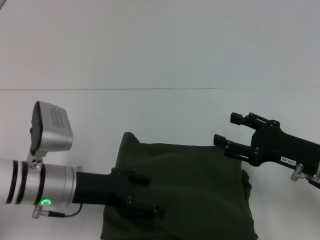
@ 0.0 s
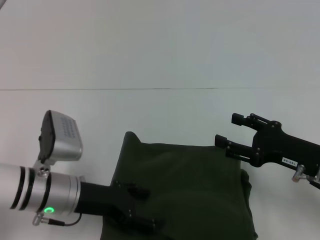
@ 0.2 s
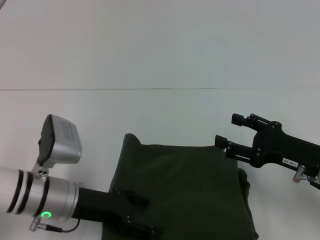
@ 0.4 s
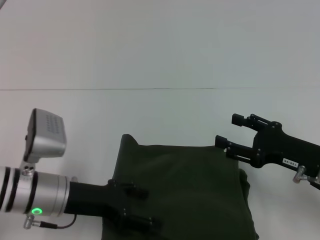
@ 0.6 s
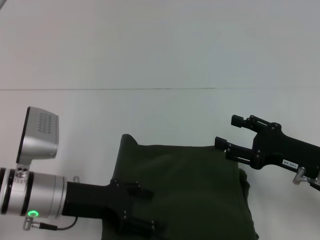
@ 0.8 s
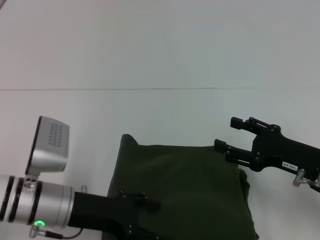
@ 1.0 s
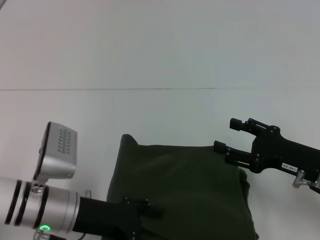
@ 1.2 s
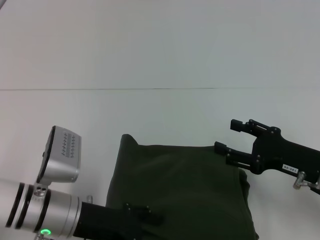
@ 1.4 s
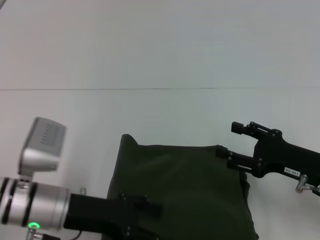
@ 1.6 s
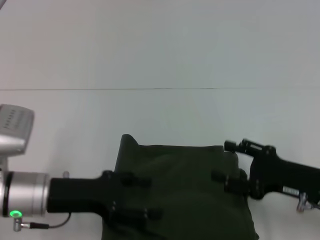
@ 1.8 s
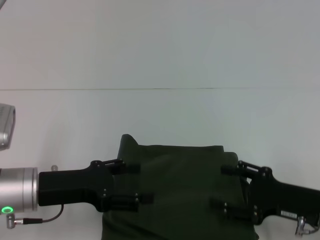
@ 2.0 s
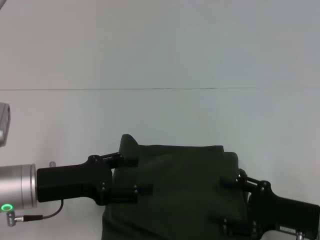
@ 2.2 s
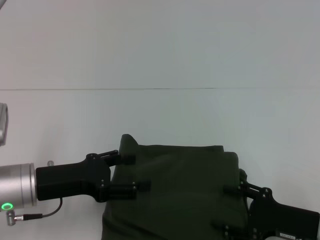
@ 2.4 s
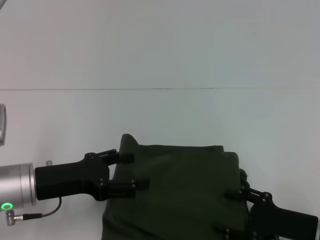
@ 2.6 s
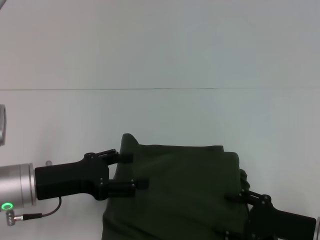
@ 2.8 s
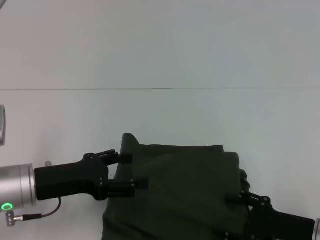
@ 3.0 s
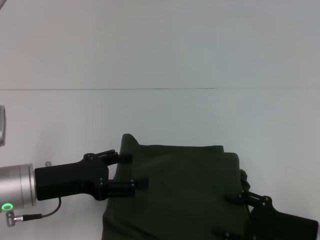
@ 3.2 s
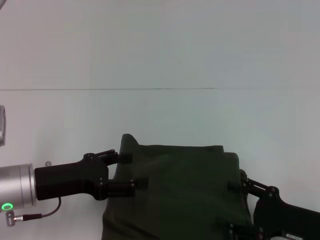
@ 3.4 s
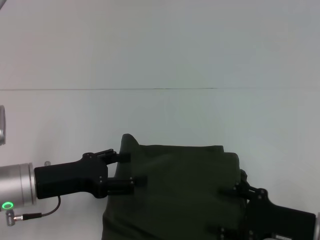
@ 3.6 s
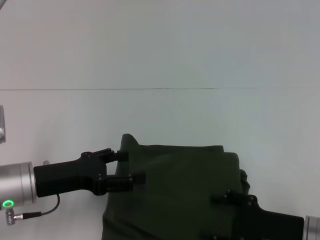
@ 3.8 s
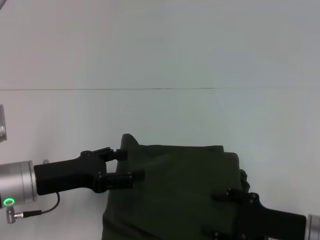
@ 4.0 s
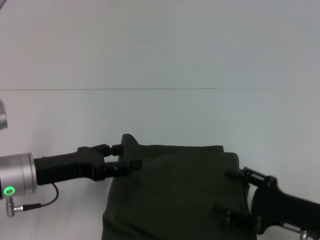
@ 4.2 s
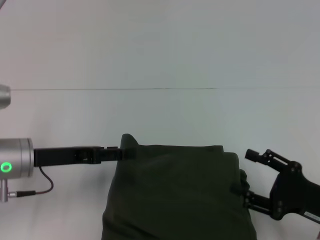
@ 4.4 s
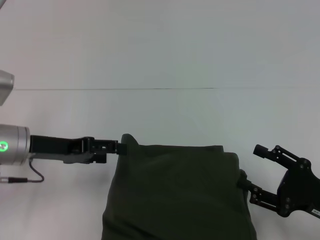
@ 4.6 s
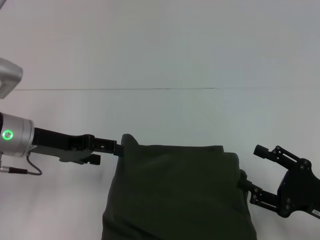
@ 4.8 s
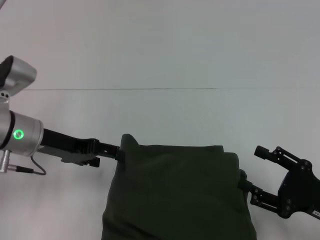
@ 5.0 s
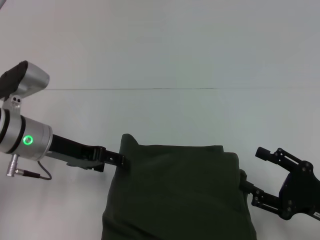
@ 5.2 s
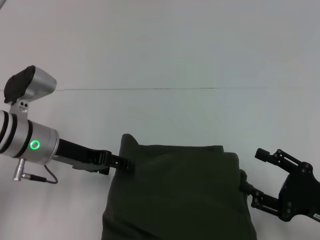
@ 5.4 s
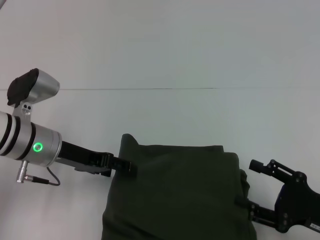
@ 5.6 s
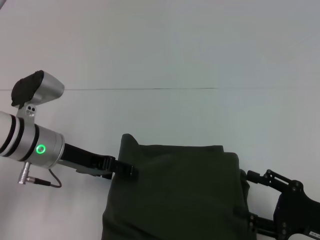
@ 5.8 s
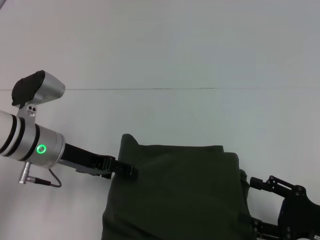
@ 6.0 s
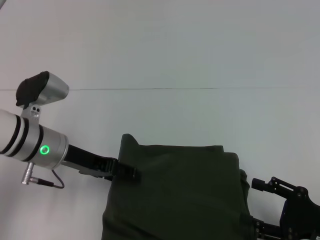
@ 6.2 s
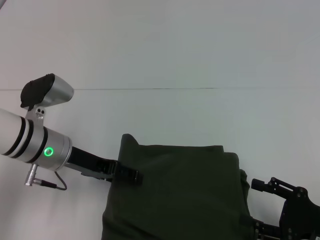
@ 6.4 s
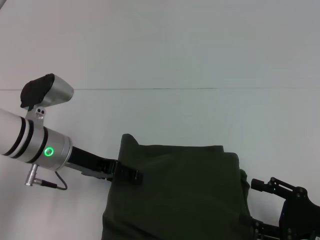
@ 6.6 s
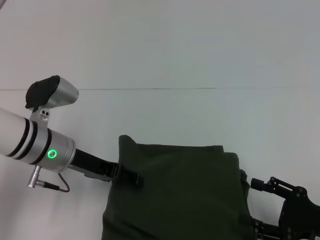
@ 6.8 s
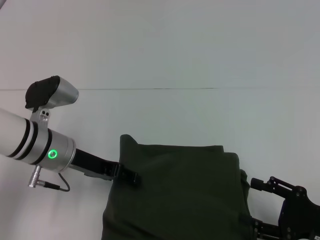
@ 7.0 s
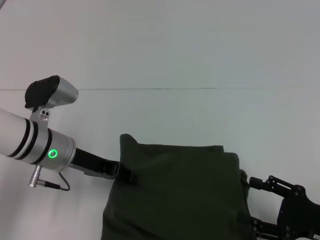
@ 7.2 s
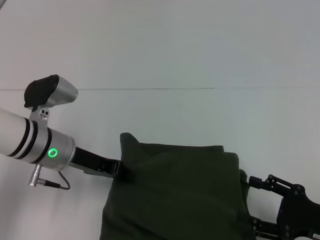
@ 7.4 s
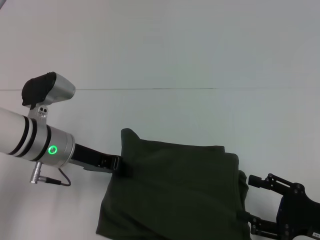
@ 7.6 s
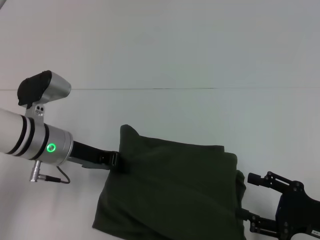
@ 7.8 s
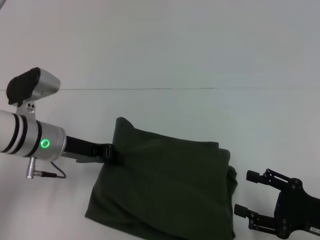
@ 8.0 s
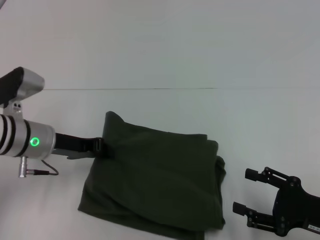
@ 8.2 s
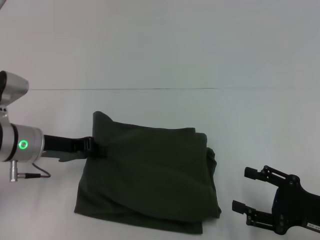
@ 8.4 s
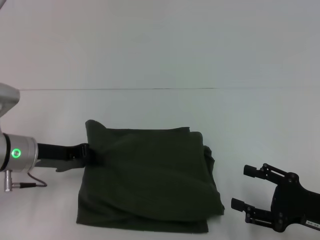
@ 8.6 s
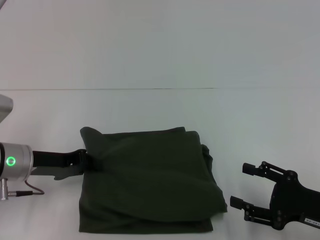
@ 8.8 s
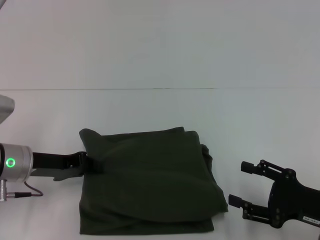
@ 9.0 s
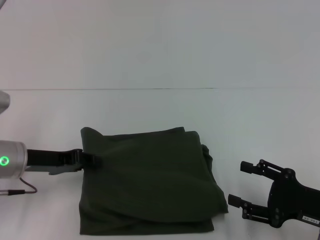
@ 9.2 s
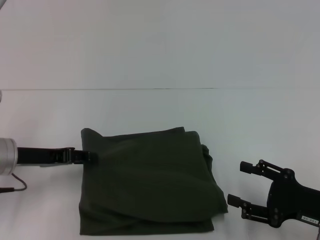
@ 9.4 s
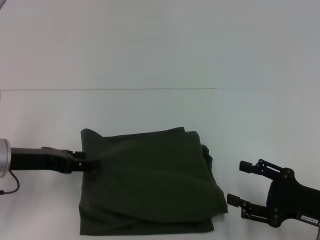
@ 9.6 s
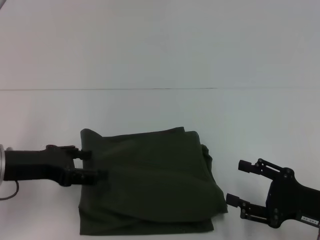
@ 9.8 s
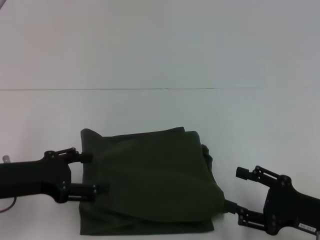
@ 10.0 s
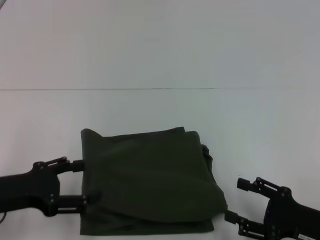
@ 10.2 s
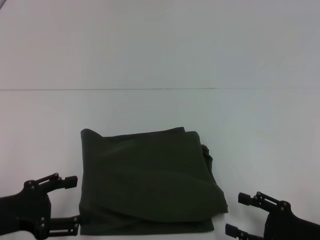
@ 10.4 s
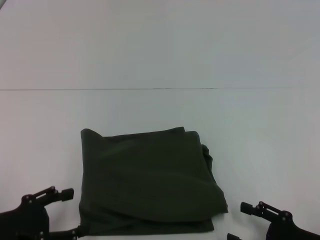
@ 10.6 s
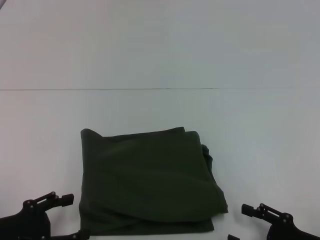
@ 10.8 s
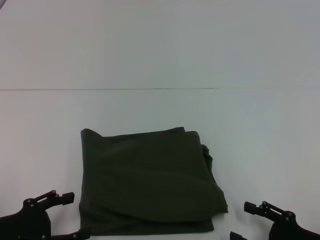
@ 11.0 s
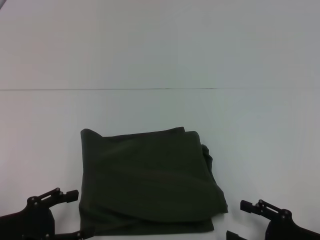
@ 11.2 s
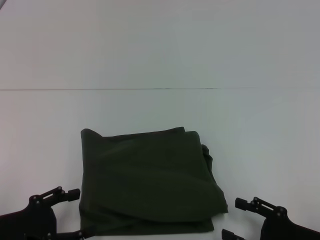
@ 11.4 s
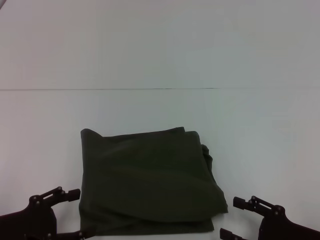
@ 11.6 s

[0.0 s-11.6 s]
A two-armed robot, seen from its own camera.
0.0 to 1.4 s: The grippers stay close to where they were, moving slightly.
1.4 to 2.8 s: The right gripper heads downward and backward, covering approximately 10 cm; the left gripper is displaced to the left by some 5 cm.
4.4 to 5.8 s: The left gripper moves about 5 cm.
5.8 to 7.2 s: The grippers stay close to where they were, moving slightly.
7.2 to 8.8 s: The left gripper travels to the left by some 5 cm, and closes.
8.8 to 10.2 s: The left gripper shifts approximately 10 cm backward, and opens.
10.2 to 11.6 s: The left gripper moves approximately 5 cm.

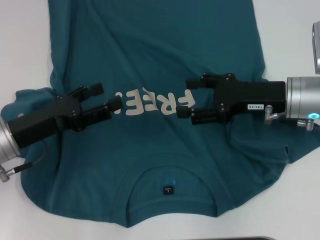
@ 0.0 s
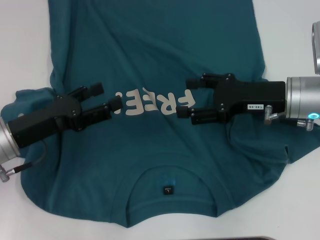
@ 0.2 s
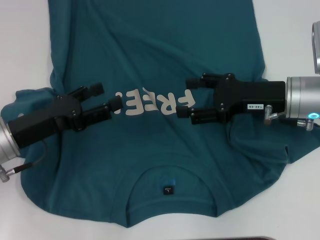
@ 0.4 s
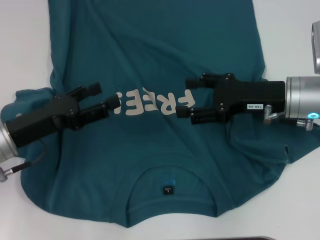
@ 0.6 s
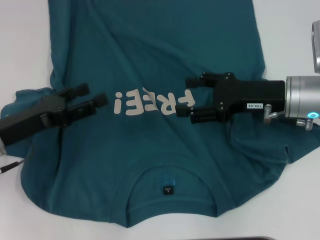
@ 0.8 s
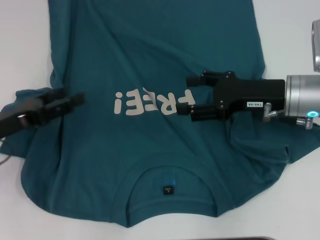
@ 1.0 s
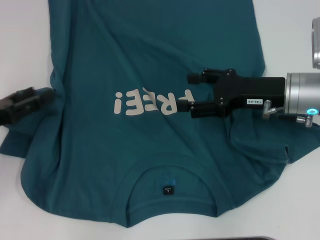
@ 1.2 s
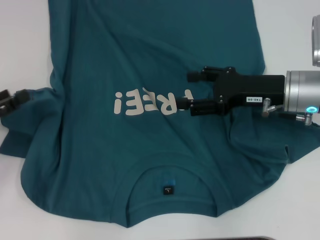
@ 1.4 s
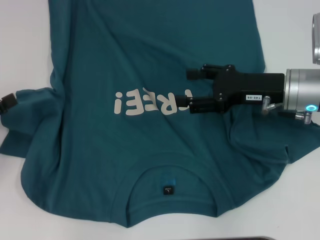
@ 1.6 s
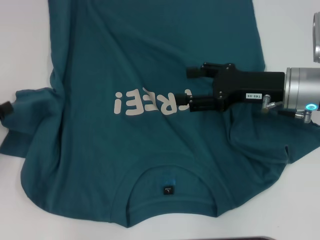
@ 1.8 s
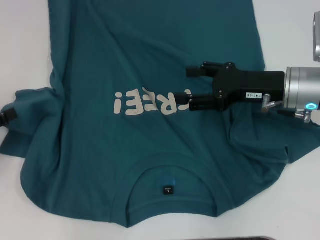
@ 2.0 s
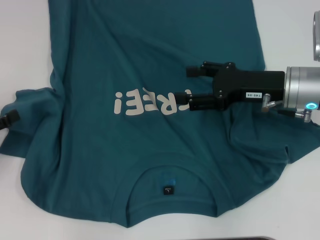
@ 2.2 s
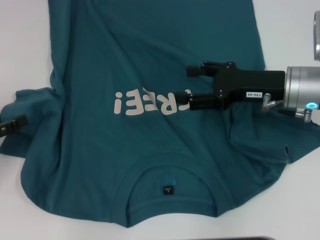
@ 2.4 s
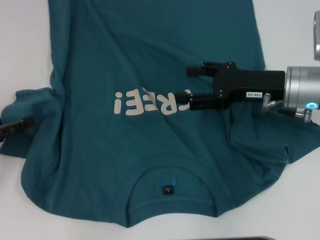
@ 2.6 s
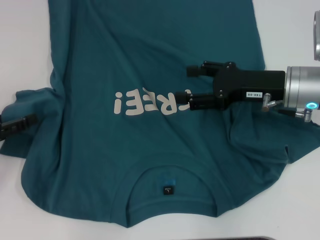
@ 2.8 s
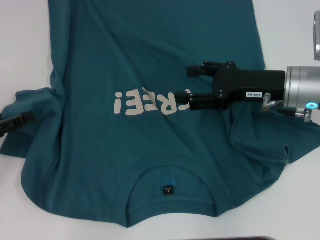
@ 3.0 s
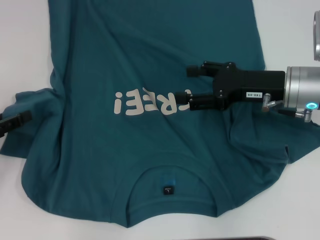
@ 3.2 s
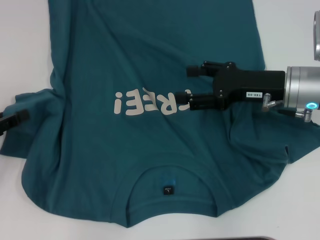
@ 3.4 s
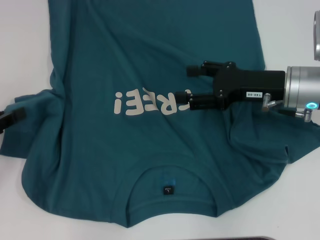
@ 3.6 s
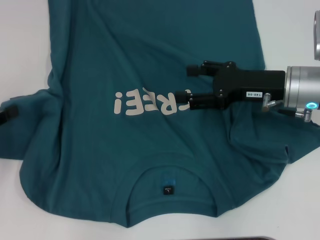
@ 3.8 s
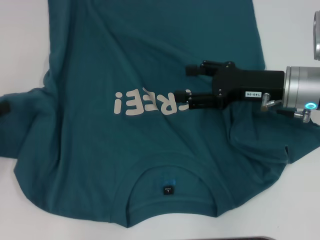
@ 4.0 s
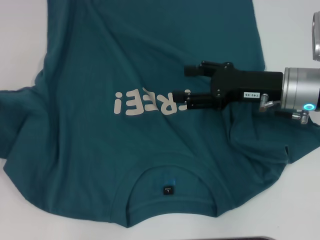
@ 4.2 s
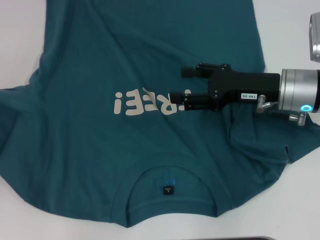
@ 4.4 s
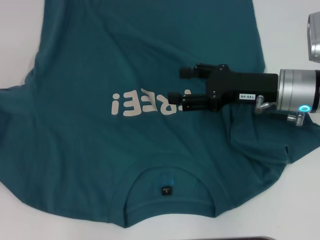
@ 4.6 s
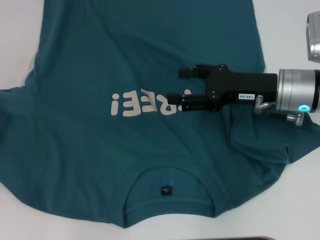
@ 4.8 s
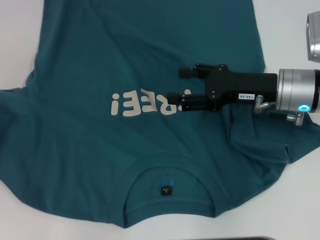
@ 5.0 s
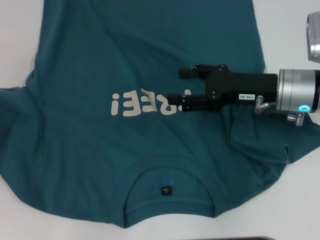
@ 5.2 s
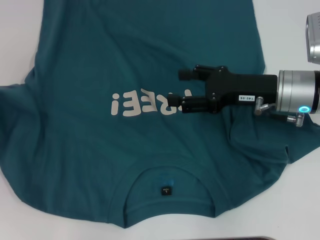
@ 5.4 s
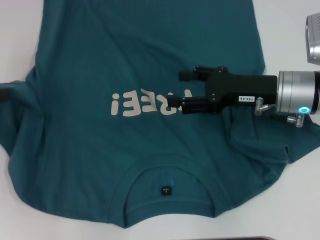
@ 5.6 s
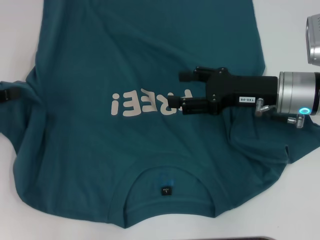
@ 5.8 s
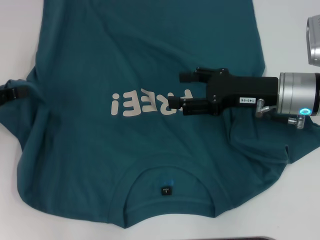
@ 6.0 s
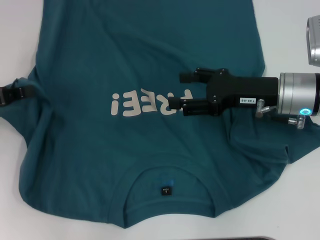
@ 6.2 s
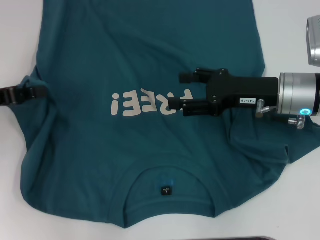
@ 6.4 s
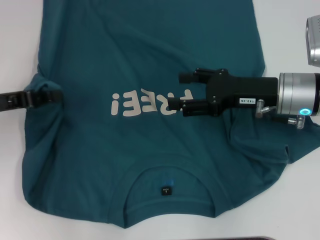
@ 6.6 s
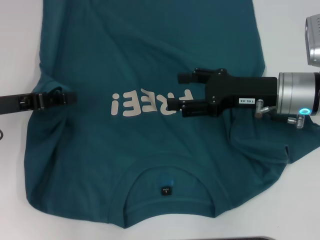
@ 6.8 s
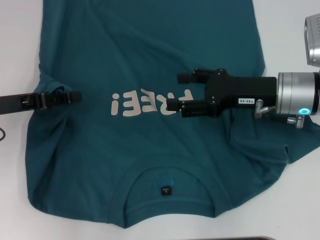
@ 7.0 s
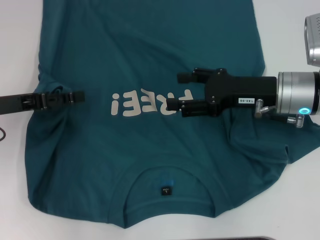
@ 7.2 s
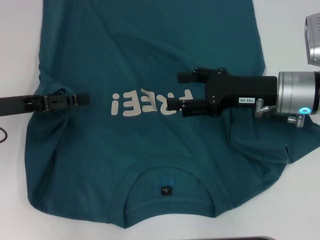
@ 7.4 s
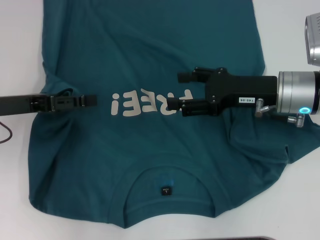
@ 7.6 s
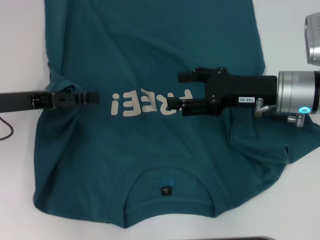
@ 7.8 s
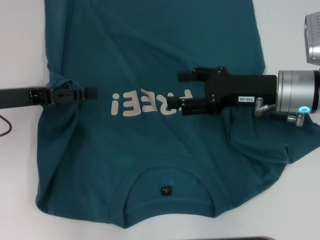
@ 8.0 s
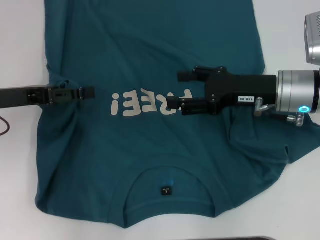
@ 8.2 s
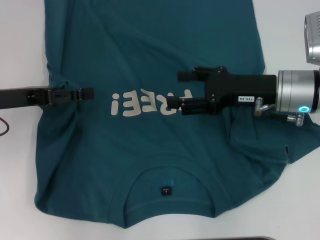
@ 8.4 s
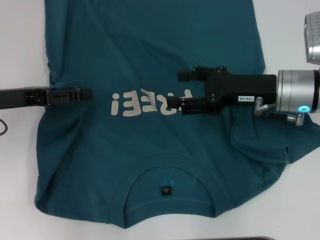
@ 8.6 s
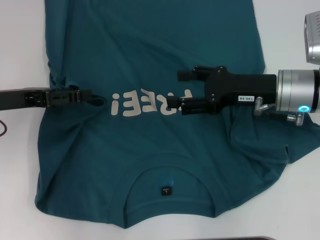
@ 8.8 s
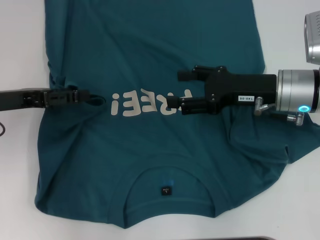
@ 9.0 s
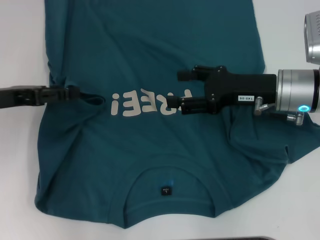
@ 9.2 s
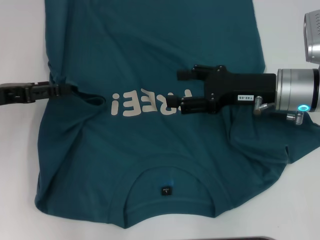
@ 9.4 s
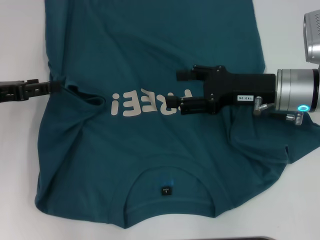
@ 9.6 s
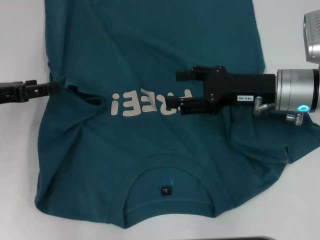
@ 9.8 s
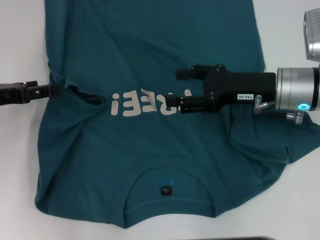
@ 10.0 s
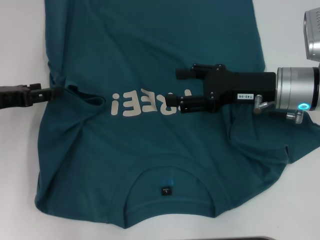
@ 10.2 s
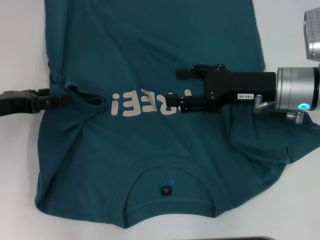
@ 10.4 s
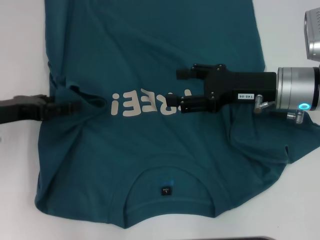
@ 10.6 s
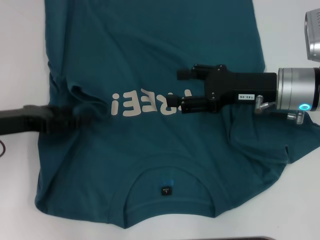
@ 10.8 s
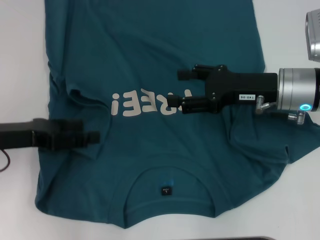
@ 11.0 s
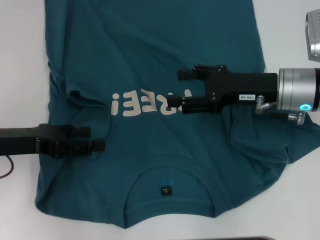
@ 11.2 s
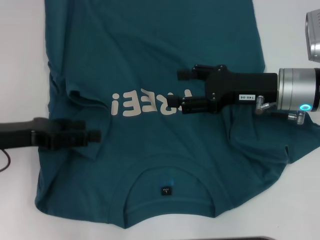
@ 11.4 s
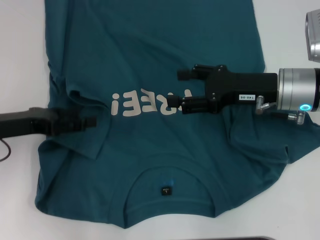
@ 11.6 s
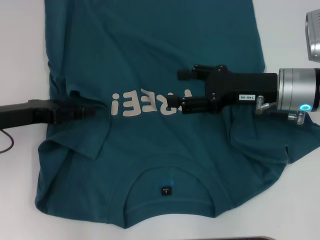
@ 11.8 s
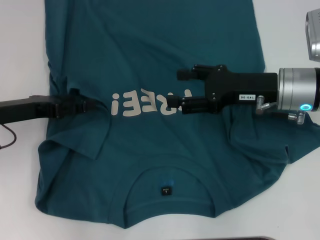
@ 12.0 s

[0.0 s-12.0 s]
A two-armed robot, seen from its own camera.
0.0 to 1.6 s: The left gripper heads to the left, covering about 15 cm.
1.6 to 3.0 s: The grippers stay close to where they were, moving slightly.
3.0 to 4.4 s: The left gripper moves approximately 5 cm, and closes.
4.4 to 6.0 s: The left gripper travels to the right by approximately 5 cm.
6.0 to 7.6 s: The left gripper heads to the right, covering about 5 cm, and opens its fingers.
7.6 to 9.0 s: Both grippers stay about where they are.
9.0 to 12.0 s: The grippers stay close to where they were, moving slightly.
